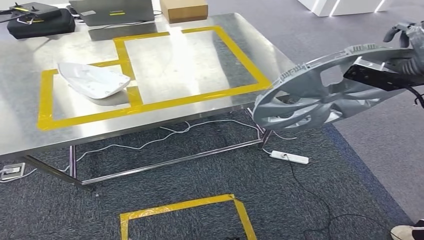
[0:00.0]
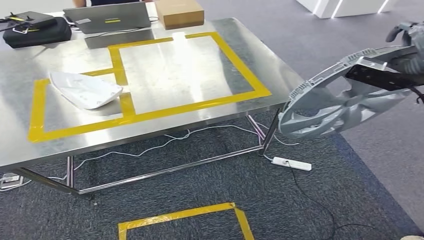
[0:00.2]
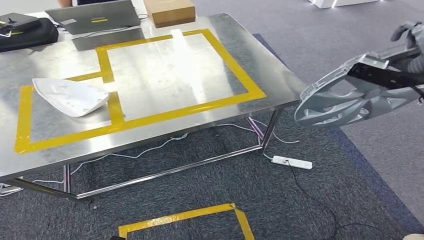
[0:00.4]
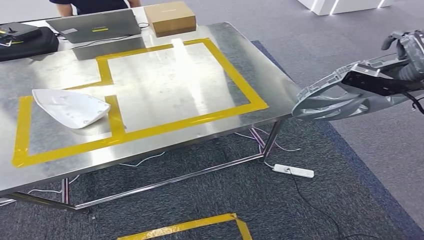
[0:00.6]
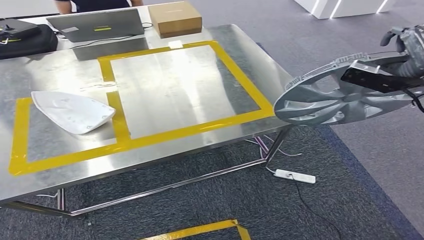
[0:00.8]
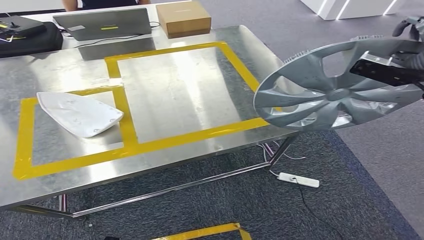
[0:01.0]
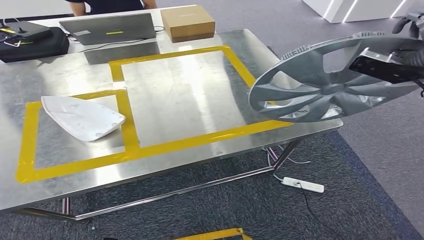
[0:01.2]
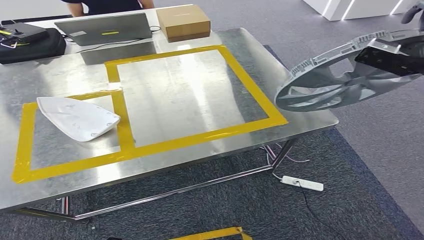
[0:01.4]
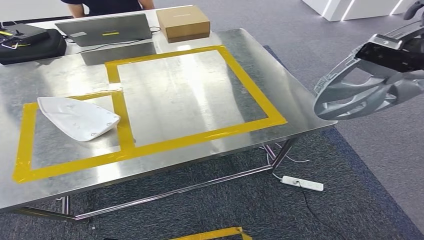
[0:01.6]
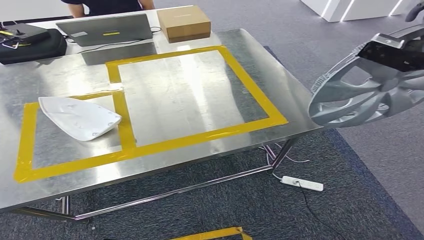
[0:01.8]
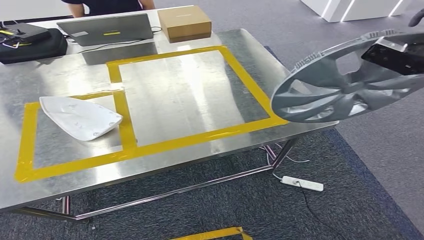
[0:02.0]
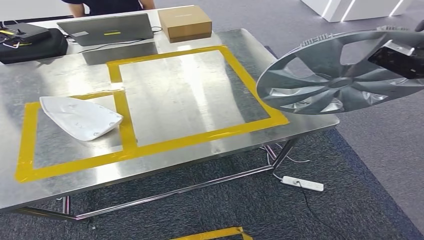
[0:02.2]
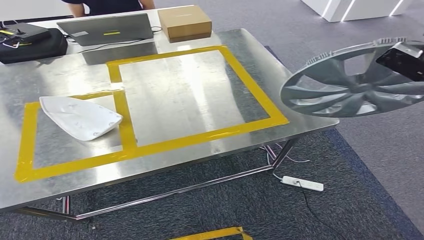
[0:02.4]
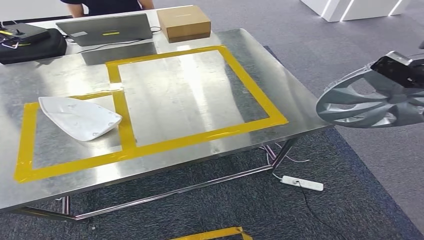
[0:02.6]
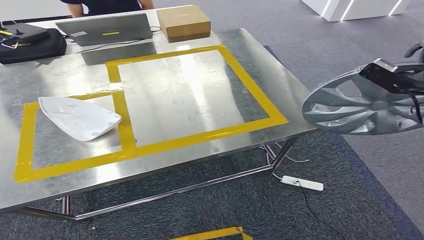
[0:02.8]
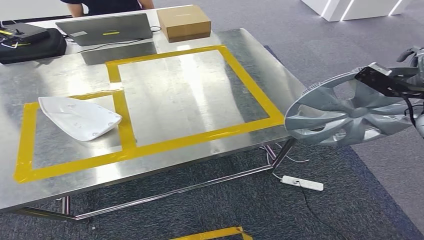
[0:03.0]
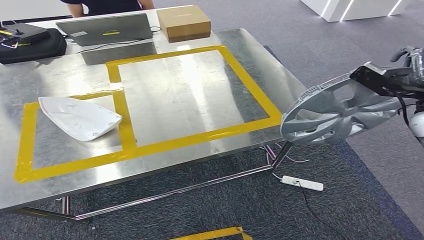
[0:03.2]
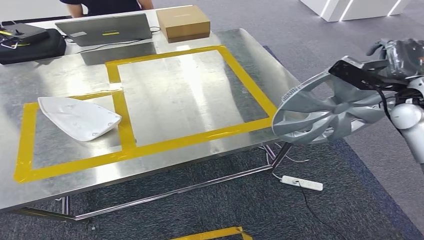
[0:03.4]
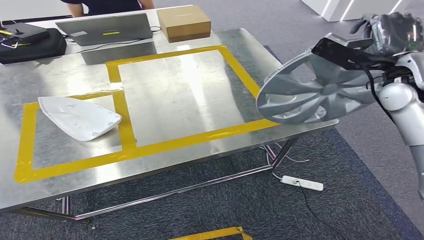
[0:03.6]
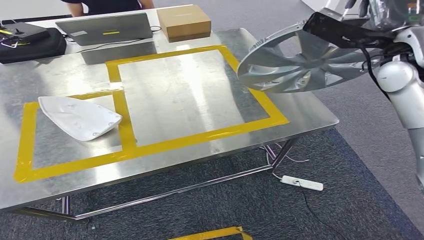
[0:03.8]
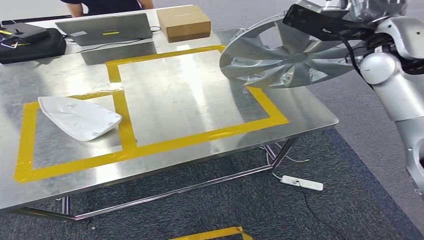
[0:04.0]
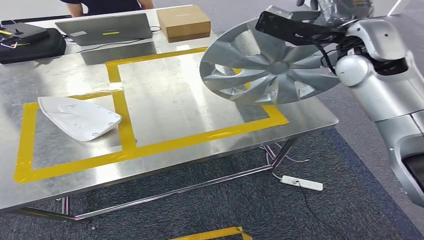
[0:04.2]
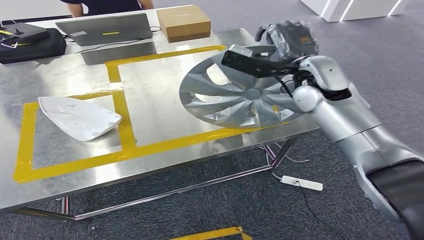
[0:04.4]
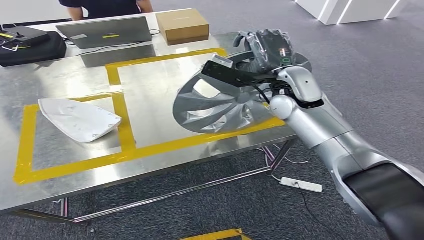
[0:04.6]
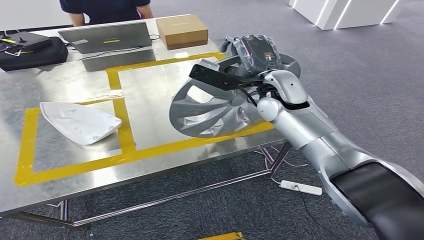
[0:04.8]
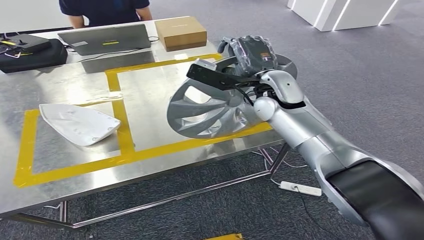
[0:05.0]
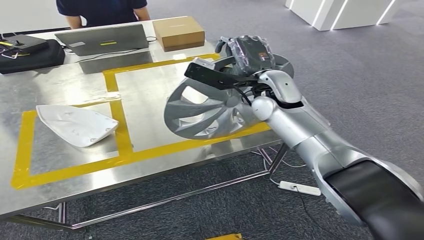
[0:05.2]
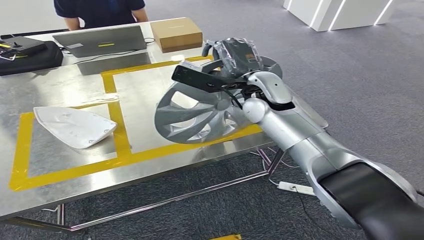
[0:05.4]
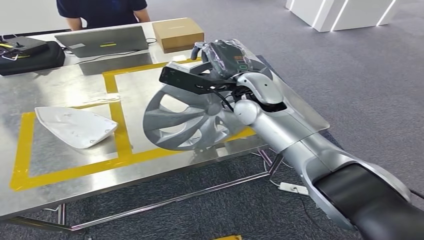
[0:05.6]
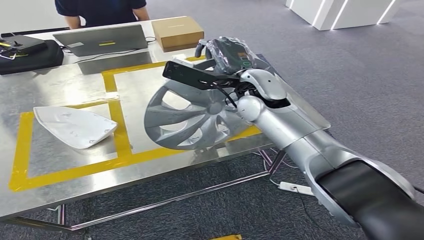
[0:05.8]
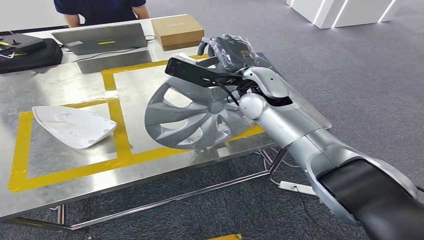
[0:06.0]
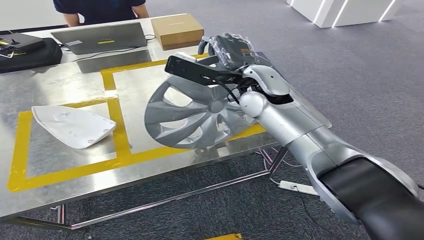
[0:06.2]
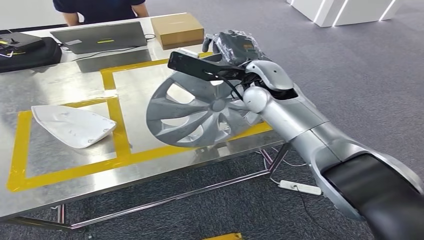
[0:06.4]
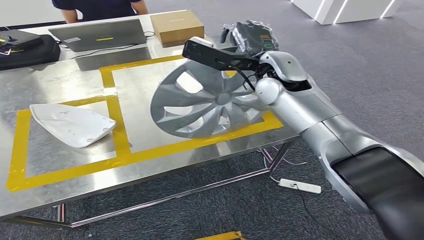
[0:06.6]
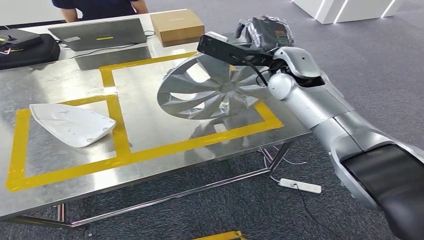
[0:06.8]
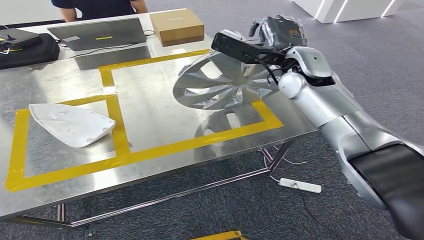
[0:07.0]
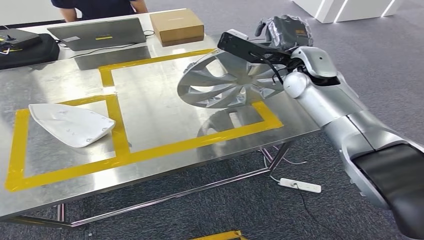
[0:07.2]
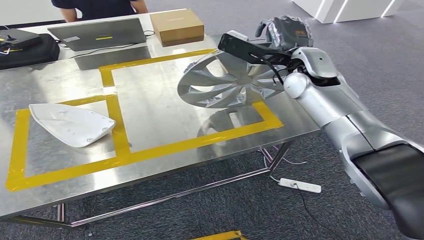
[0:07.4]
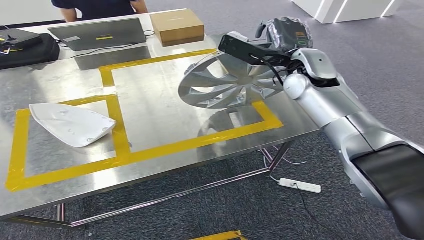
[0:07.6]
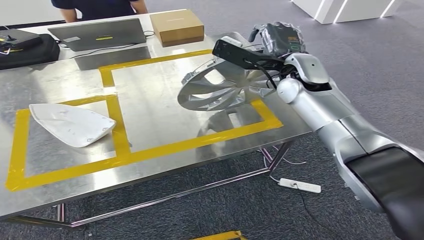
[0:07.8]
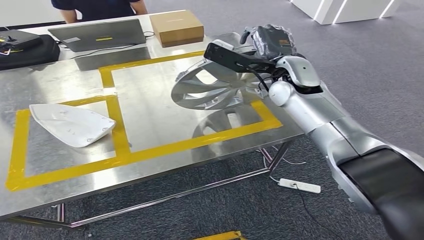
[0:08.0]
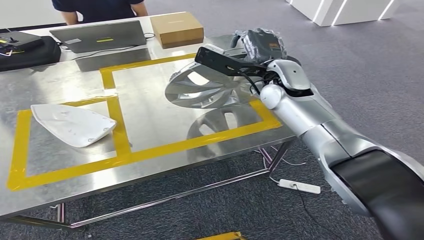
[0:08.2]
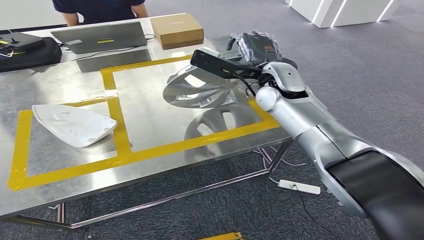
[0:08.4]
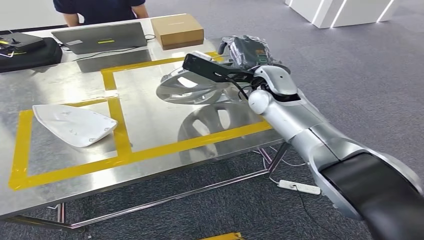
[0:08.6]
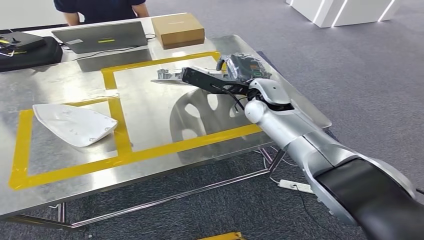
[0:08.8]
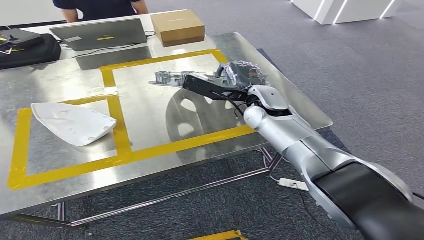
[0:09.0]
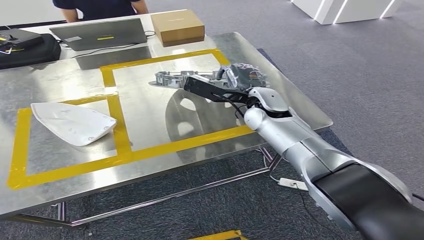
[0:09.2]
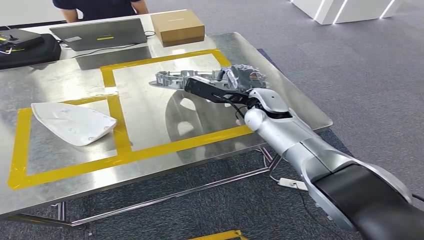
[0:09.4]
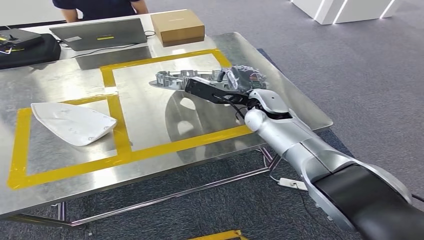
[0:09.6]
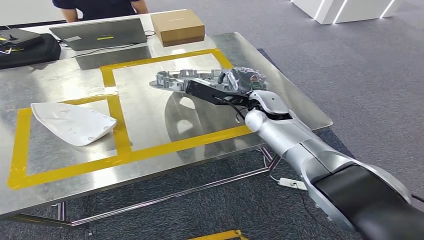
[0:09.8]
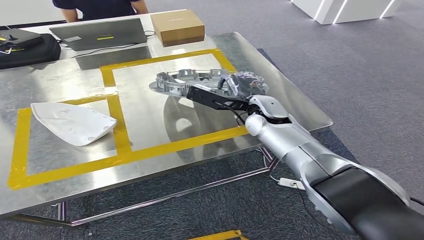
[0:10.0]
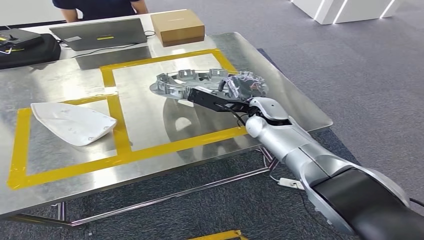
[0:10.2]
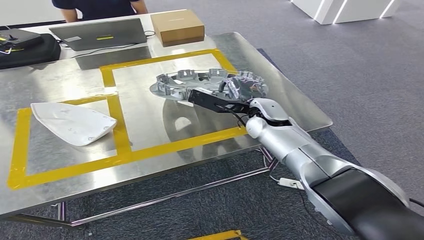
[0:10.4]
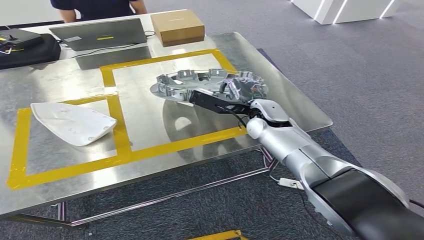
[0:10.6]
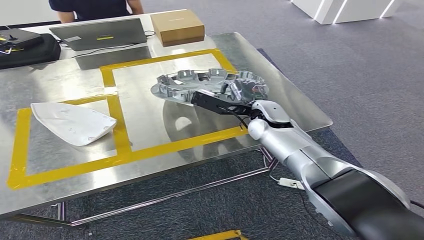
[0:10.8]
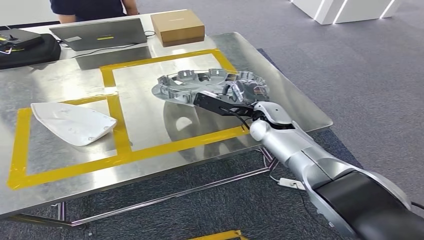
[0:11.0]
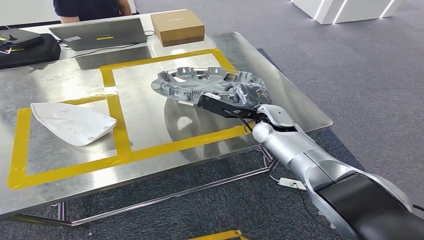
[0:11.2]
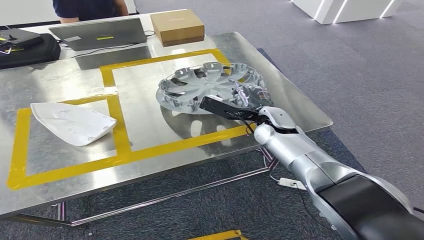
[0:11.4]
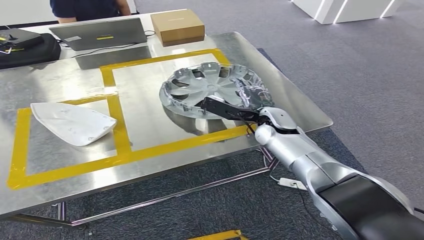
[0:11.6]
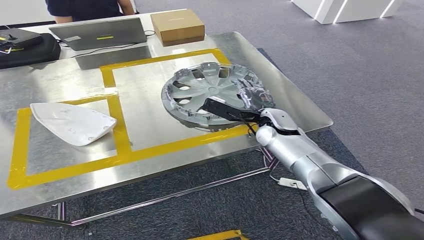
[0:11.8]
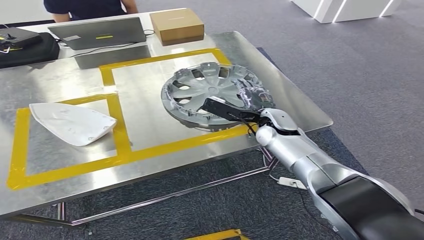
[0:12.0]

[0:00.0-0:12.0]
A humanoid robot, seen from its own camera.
0:01.6 to 0:03.0: The right hand heads downward, covering roughly 10 cm.
0:09.0 to 0:10.4: There are only small adjustments of the hands.
0:10.4 to 0:12.0: The hands move only a little.

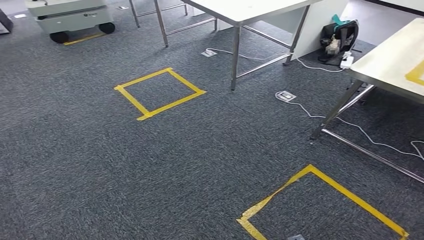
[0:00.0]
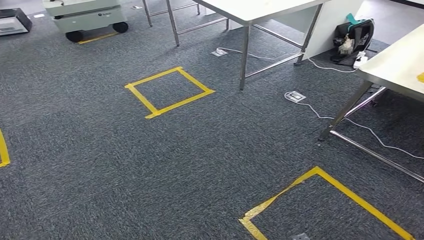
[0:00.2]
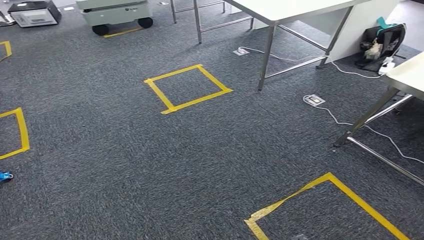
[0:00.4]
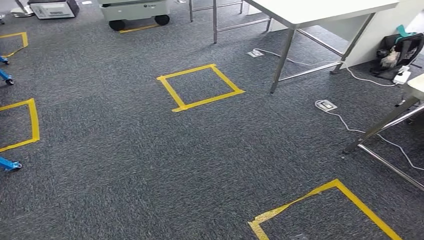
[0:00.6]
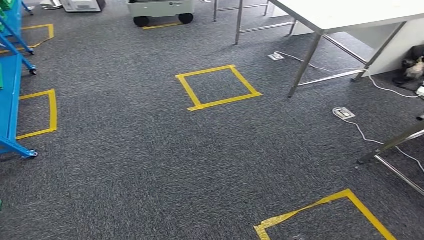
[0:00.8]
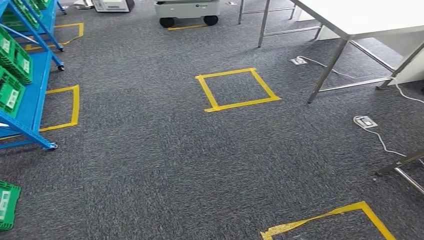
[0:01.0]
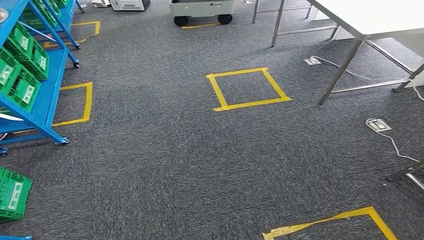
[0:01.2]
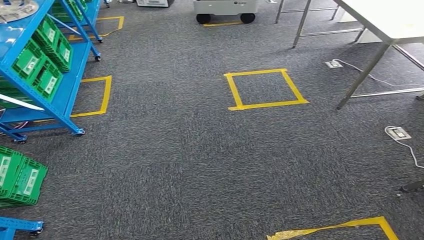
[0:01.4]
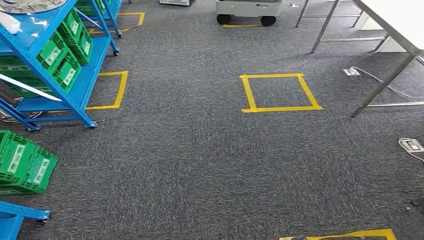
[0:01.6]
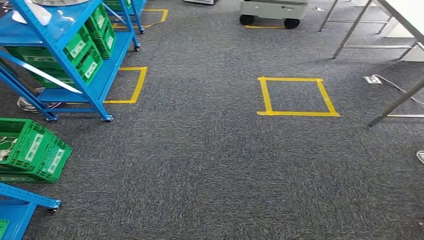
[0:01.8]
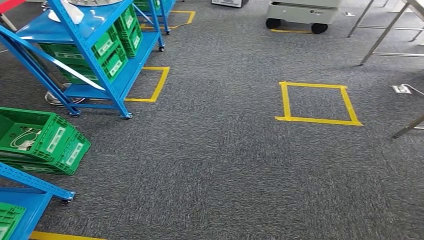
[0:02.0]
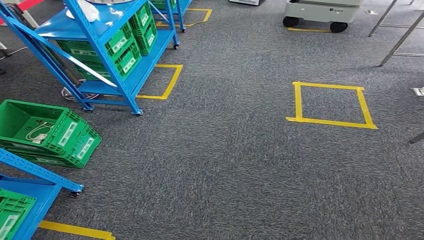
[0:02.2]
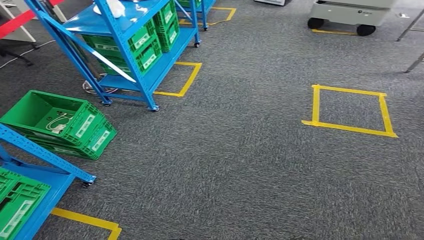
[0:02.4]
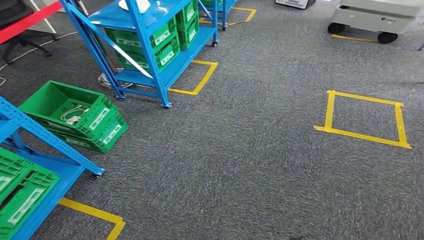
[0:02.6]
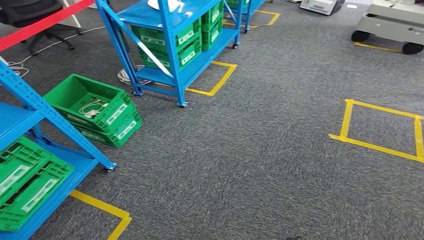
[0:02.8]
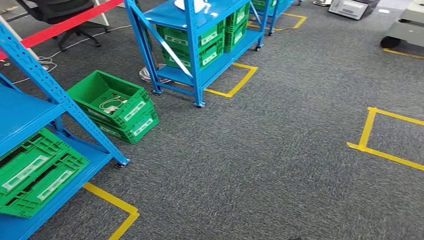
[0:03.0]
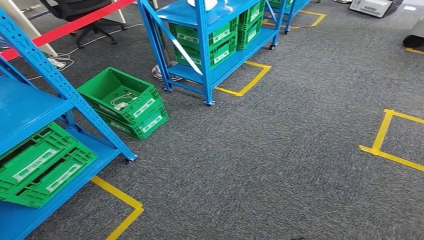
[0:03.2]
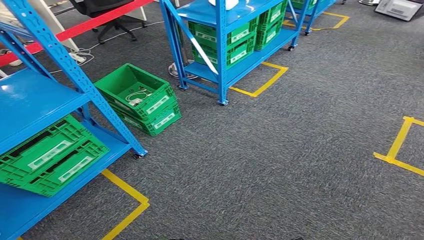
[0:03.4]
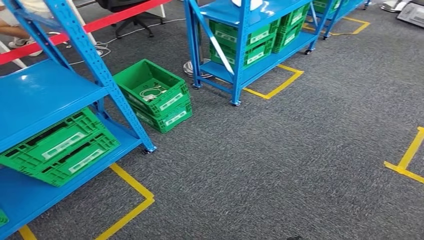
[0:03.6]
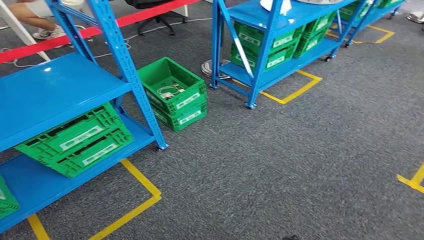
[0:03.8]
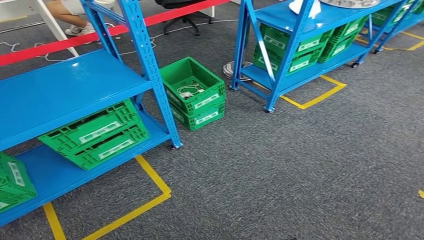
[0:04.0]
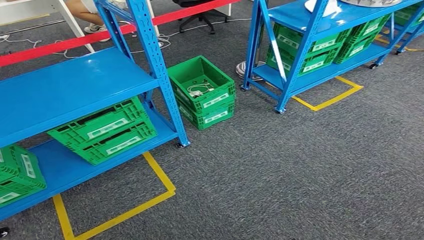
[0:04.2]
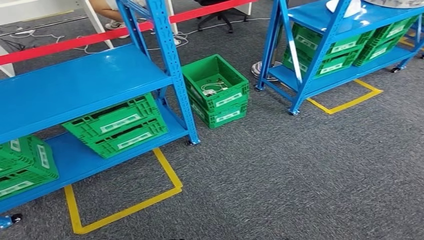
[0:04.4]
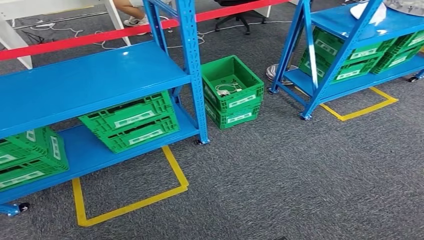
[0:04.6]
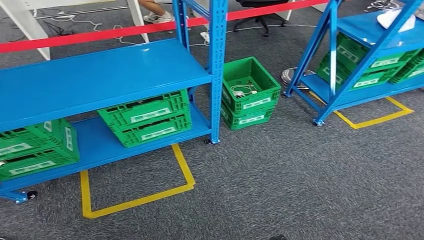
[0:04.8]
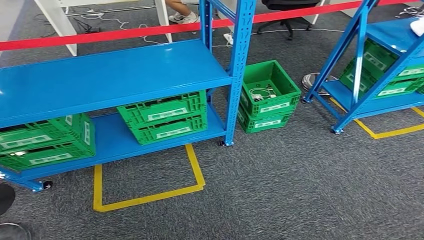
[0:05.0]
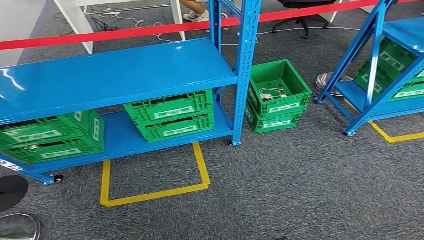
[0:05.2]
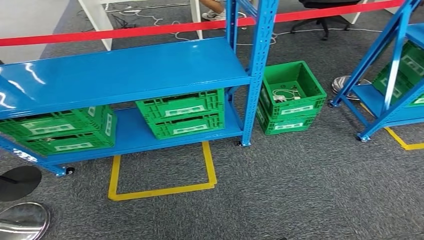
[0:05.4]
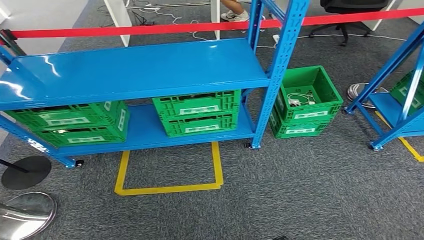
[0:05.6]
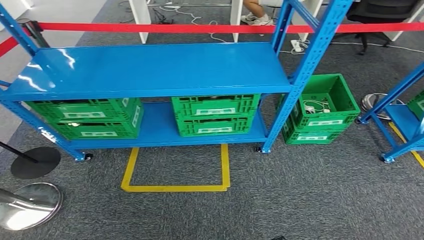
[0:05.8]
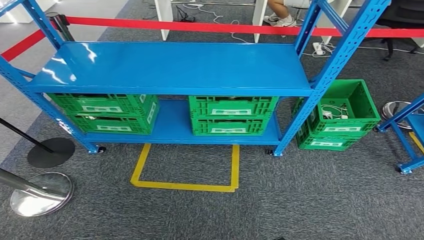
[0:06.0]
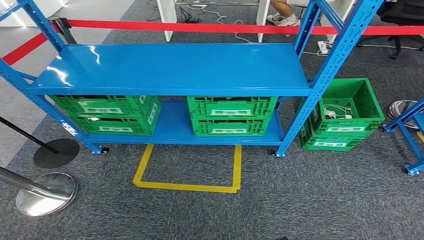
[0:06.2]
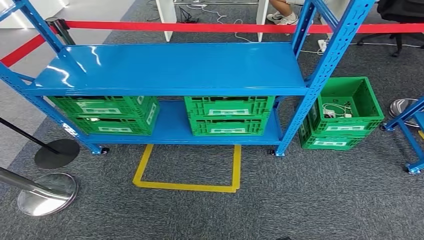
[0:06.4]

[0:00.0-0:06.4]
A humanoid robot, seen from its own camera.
Step, 0:00.0 to 0:06.2: Return to the initial position at the workbench.
